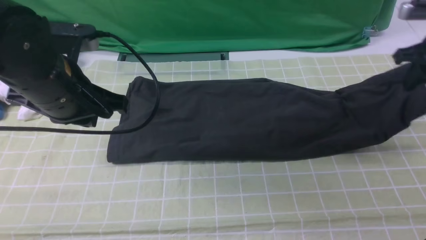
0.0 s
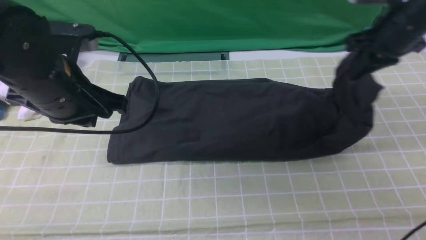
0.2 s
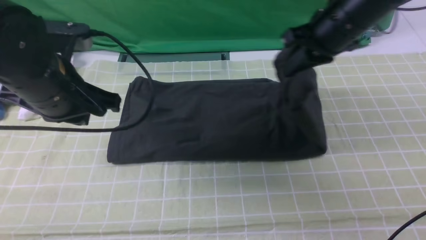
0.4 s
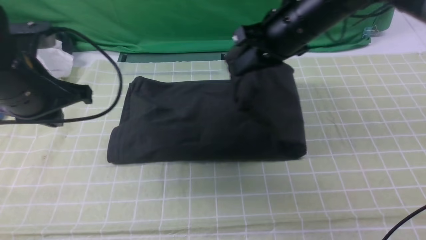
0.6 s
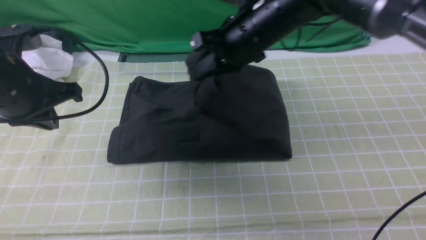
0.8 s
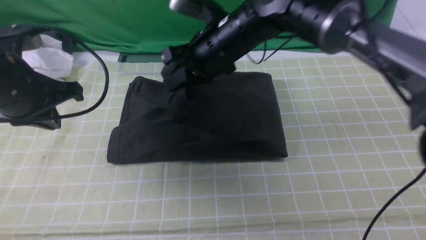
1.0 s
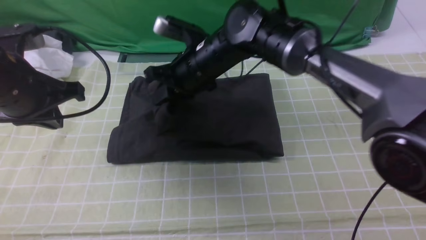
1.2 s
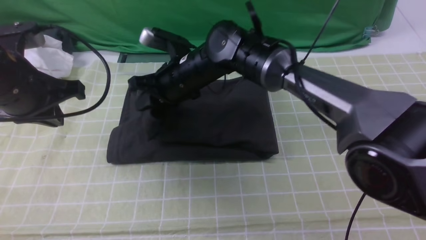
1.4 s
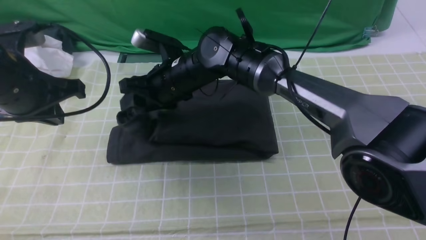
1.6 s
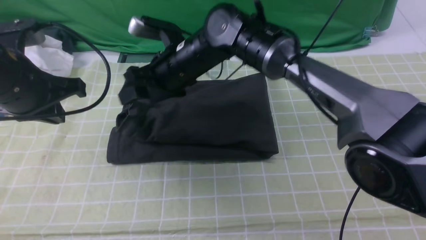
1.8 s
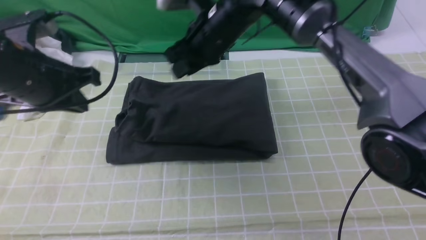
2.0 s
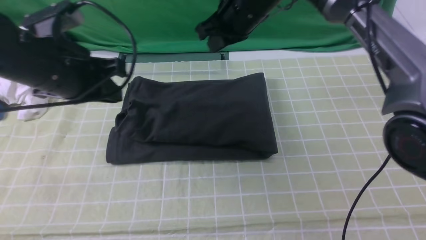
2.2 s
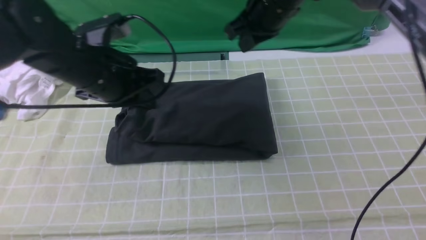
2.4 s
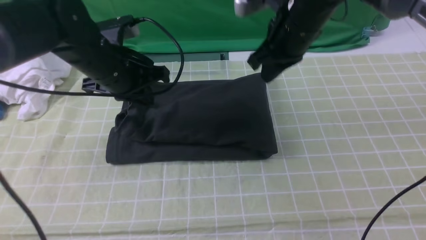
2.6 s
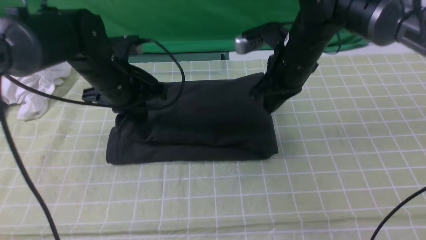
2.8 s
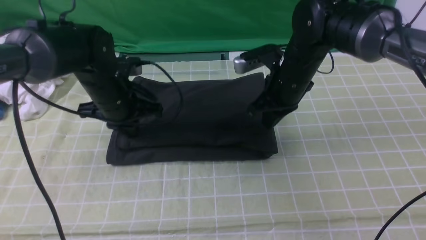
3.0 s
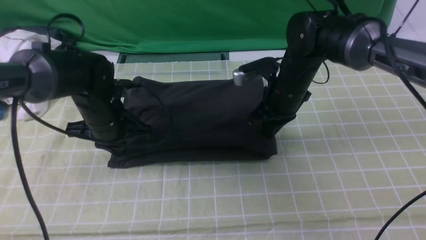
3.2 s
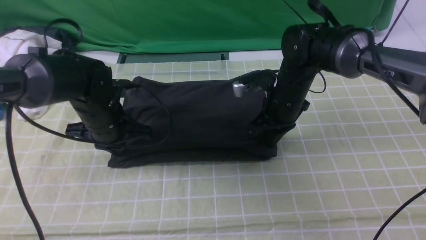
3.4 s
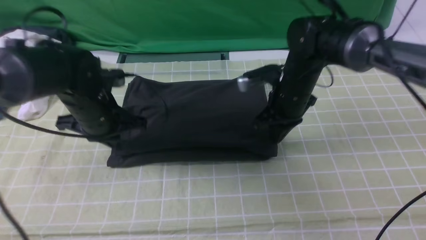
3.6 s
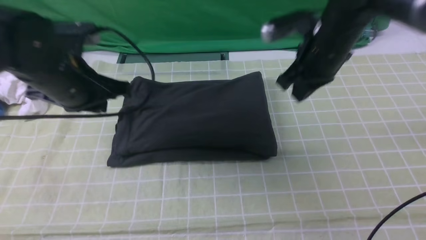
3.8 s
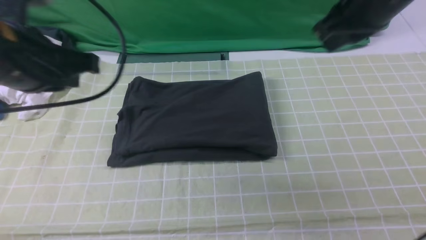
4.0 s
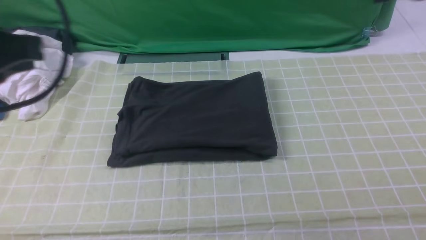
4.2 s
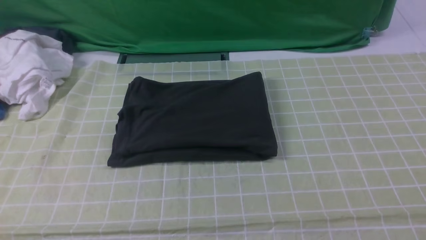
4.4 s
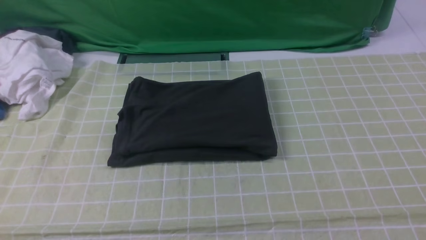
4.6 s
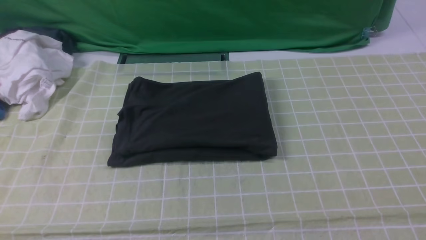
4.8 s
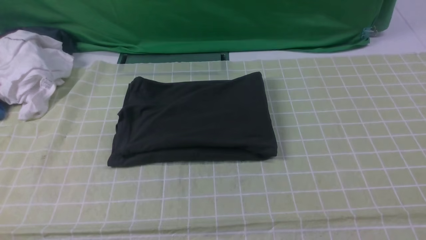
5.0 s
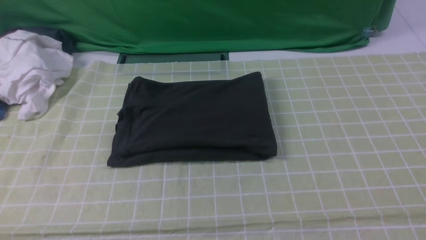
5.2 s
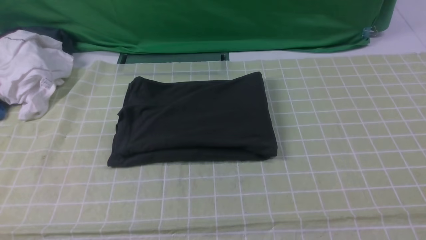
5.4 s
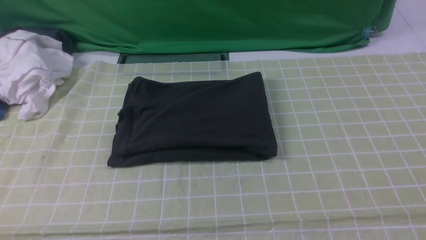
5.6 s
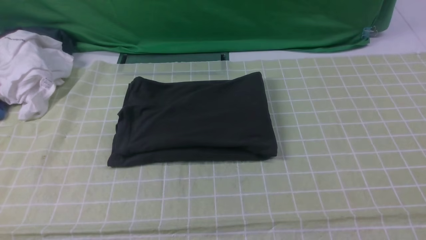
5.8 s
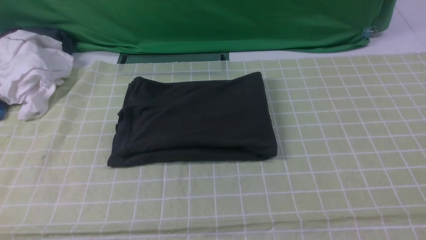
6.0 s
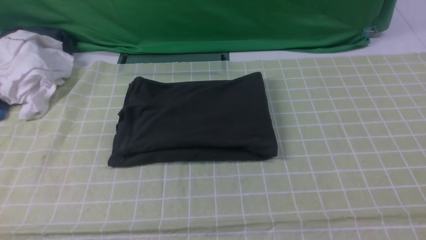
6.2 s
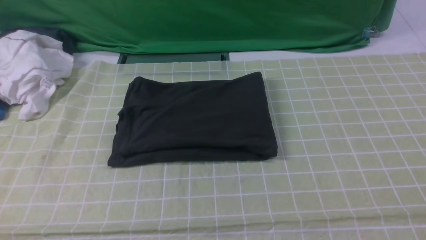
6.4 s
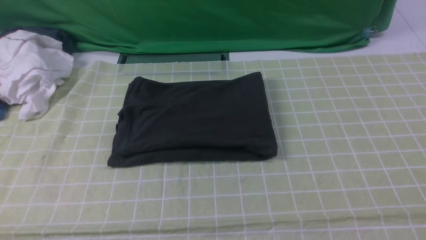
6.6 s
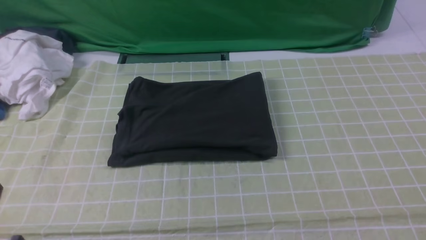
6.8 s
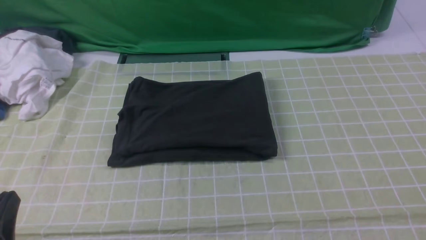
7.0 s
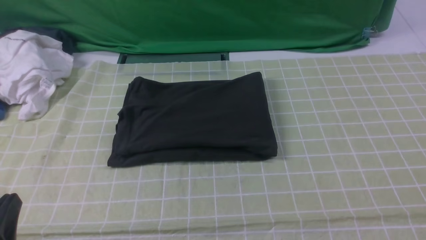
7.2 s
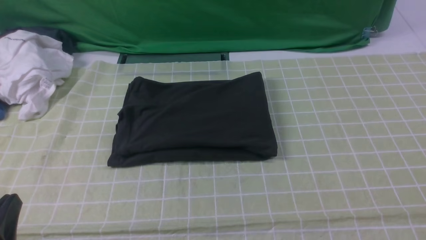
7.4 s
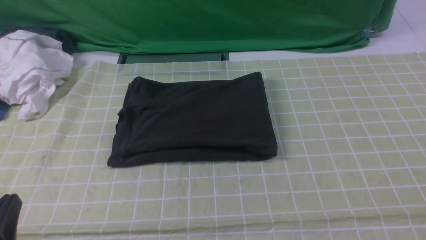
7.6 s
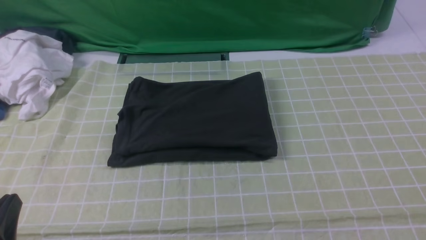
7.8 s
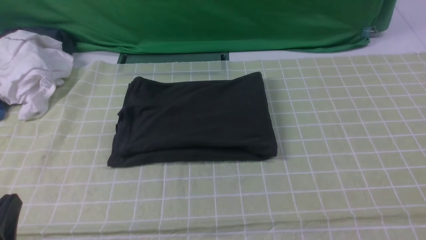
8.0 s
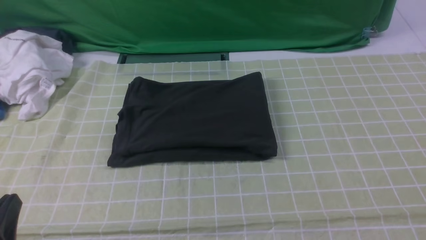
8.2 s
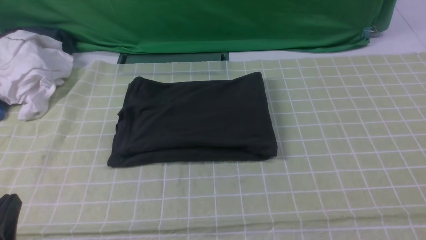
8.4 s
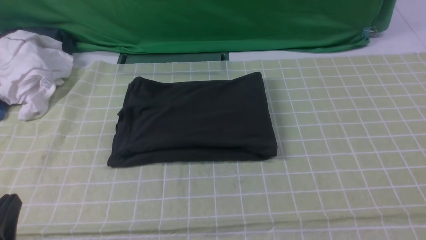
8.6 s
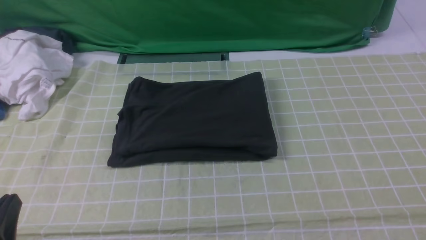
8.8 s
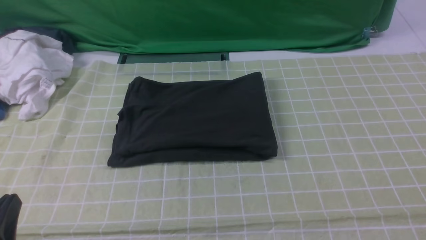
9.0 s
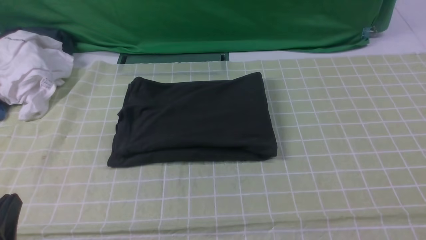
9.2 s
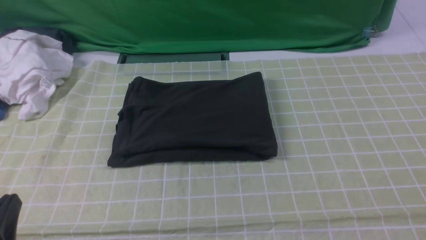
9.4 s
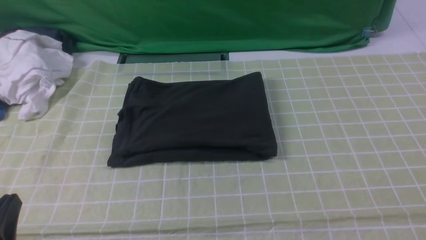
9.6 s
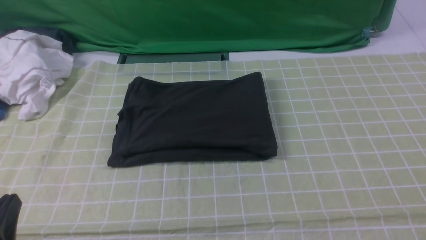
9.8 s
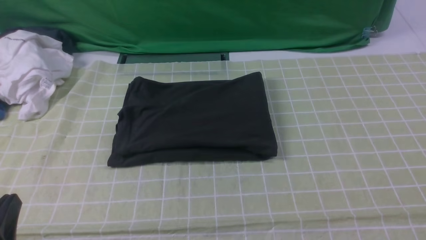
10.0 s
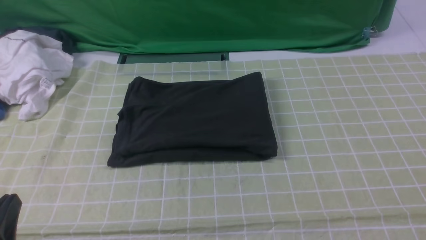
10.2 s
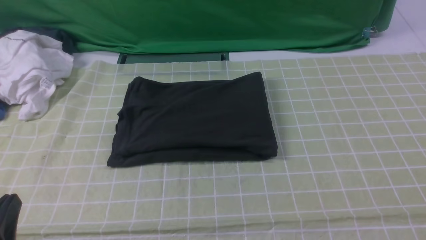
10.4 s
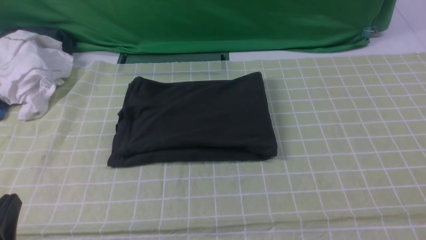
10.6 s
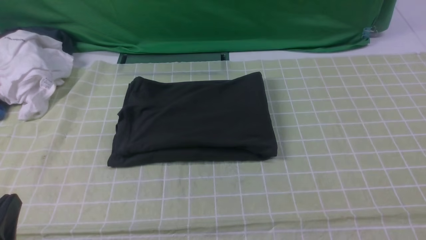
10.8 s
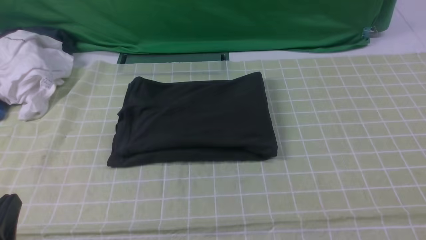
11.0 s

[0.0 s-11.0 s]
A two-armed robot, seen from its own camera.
Step, 0.0 to 1.8 s: use the right arm to drag the right edge of the fabric to the left and folds it over the left edge.
0.0 to 1.6 s: The right gripper shifts some 40 cm to the left, and opens, while the left gripper moves to the left, roughly 5 cm.
1.6 to 3.2 s: The left gripper is displaced downward, forward and to the right by roughly 15 cm. Meanwhile the right gripper shifts some 15 cm to the right, and closes.
3.2 to 4.8 s: The right gripper travels backward, upward and to the right by roughly 40 cm, while the left gripper goes some 40 cm backward and upward.
6.2 to 7.8 s: The left gripper travels downward by some 15 cm.
9.4 to 11.0 s: The two grippers keep their place.

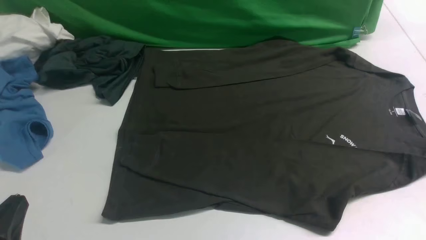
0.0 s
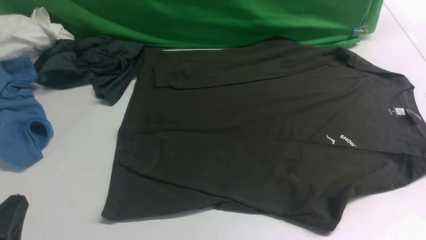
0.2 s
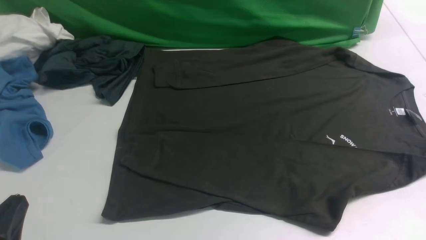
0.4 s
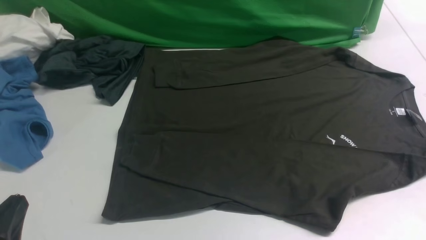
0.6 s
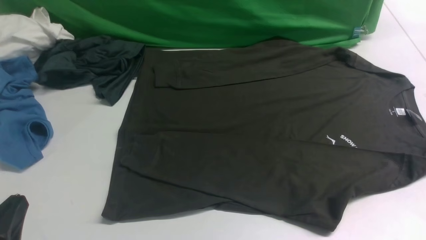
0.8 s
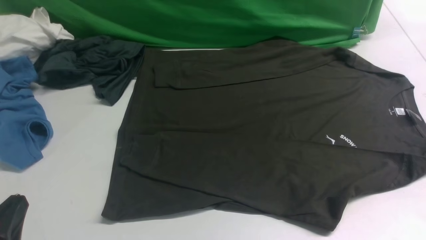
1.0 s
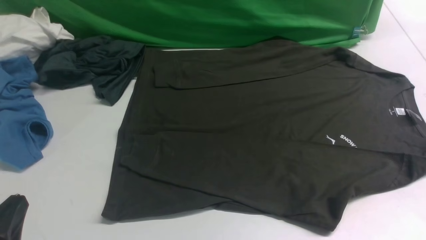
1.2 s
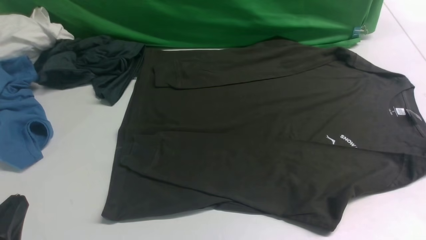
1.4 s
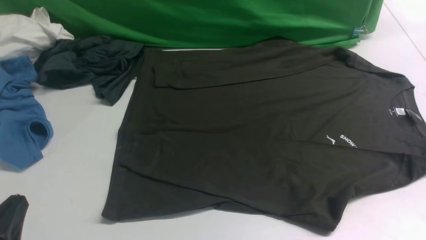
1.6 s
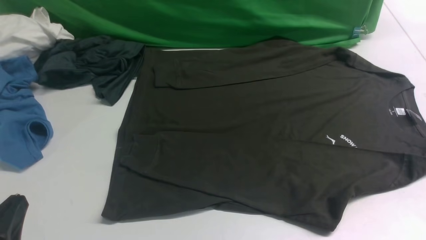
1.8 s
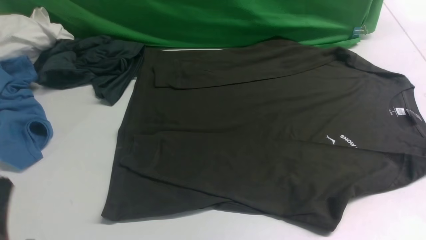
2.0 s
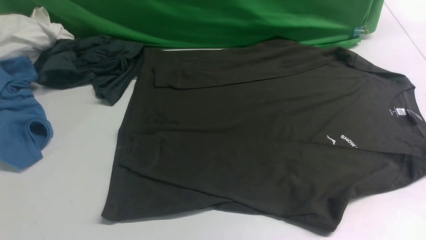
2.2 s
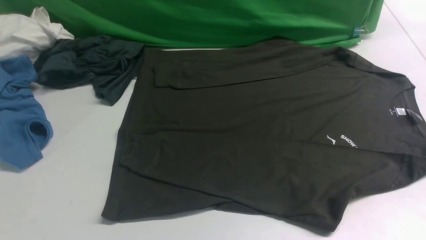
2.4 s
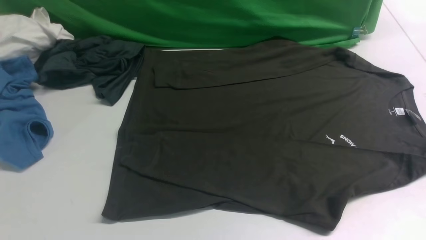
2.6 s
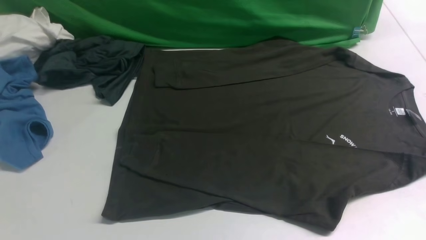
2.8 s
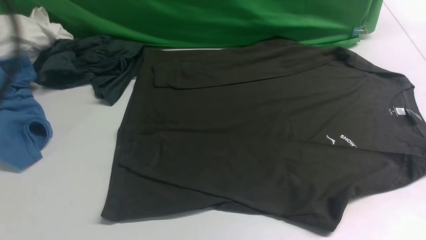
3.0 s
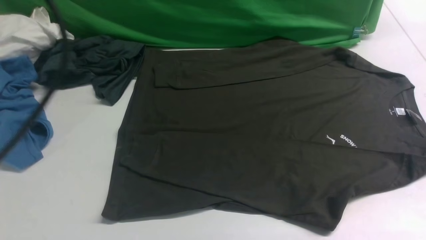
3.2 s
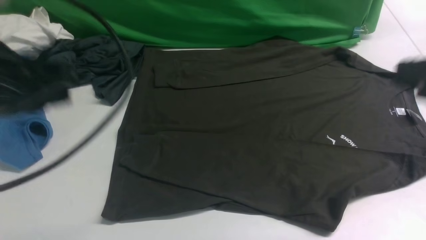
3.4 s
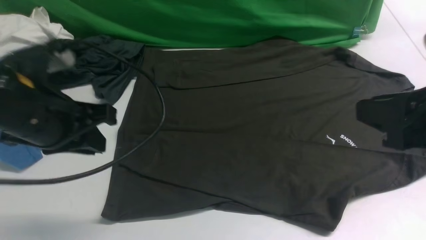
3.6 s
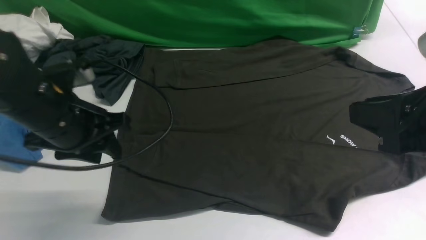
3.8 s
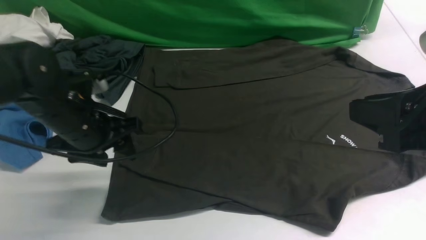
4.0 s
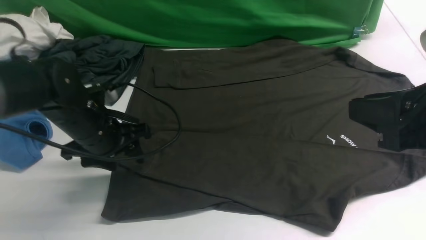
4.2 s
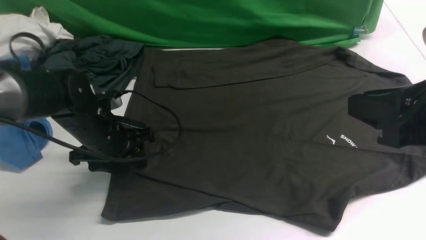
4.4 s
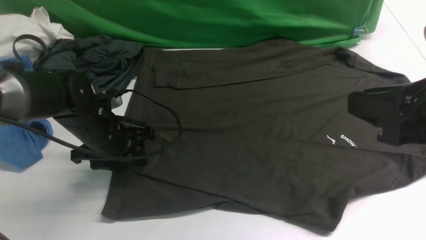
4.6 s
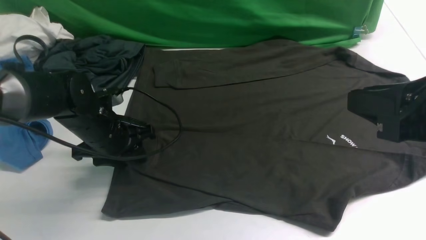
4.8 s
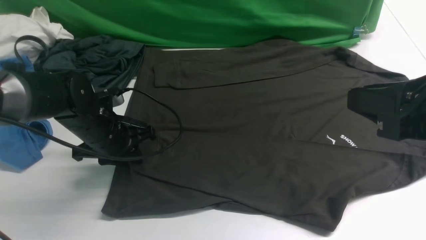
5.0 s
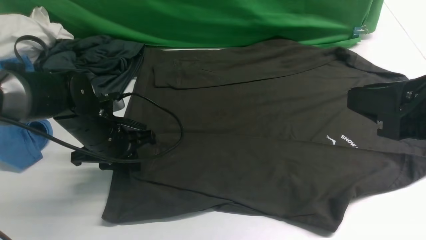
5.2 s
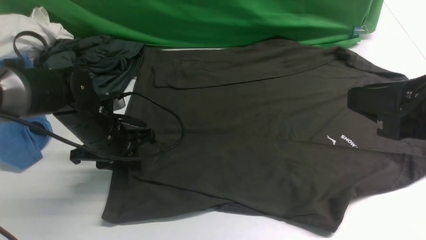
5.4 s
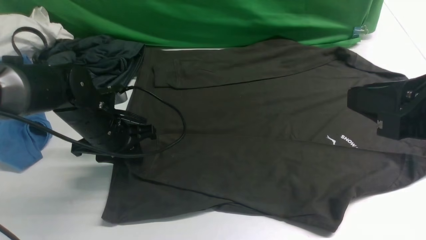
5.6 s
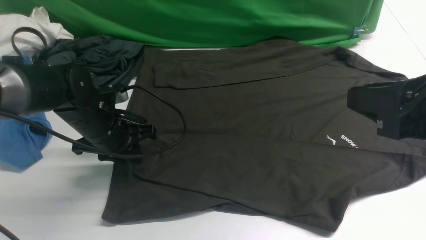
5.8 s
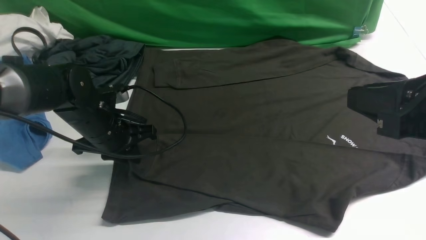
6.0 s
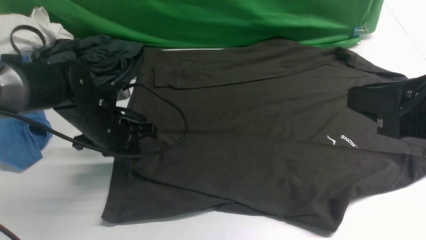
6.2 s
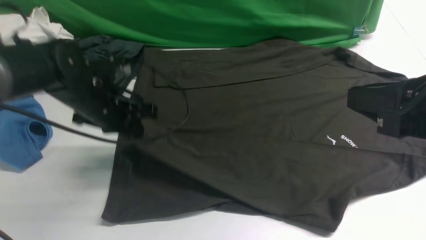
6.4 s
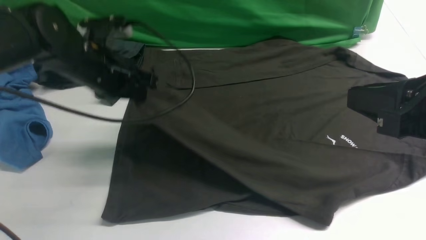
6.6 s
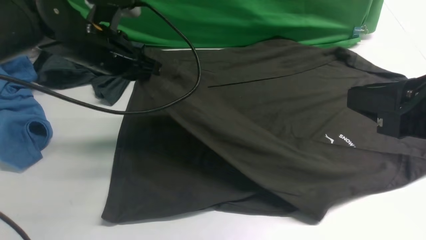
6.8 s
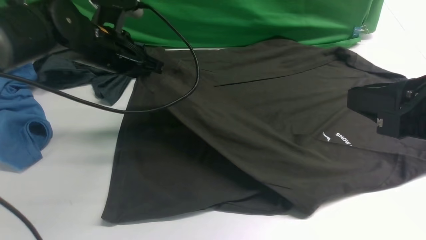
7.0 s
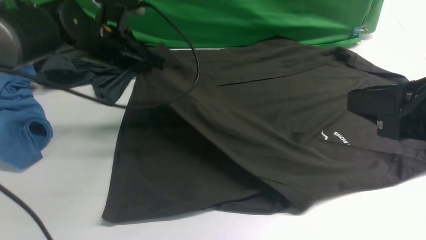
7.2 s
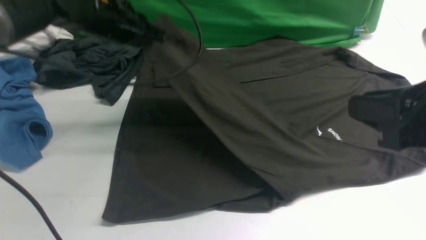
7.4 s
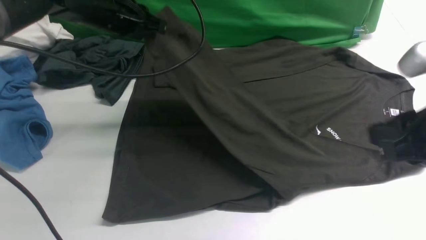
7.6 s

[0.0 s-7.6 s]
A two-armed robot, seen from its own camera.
Step, 0.0 to 6.2 s: use the left arm to clamp the cuff closest to it.
1.6 to 3.0 s: The left gripper goes roughly 25 cm upward.
3.0 to 4.6 s: The right gripper is displaced downward and to the left by approximately 15 cm, while the left gripper travels downward and forward by some 35 cm, and opens.
4.6 to 6.0 s: The left gripper closes its fingers.
6.0 to 7.6 s: The left gripper heads upward and forward, covering roughly 15 cm.
